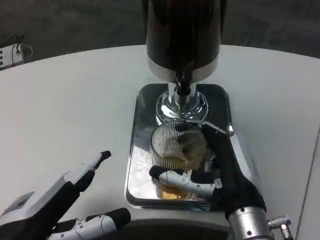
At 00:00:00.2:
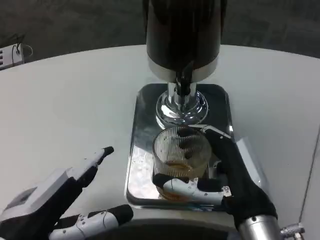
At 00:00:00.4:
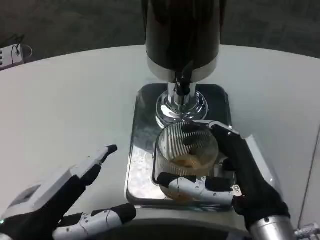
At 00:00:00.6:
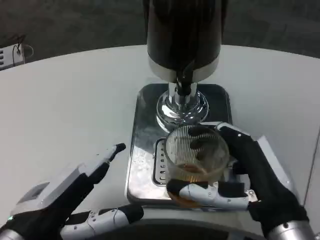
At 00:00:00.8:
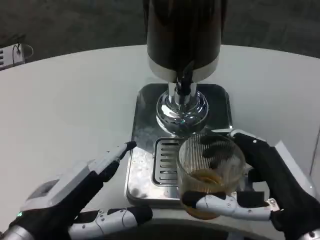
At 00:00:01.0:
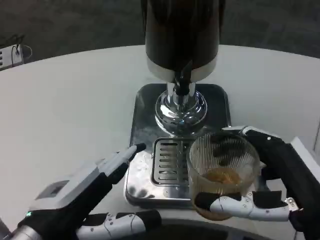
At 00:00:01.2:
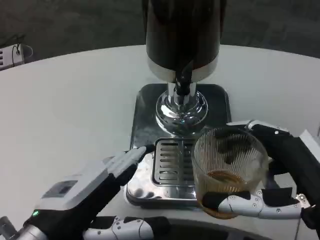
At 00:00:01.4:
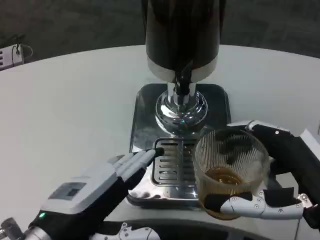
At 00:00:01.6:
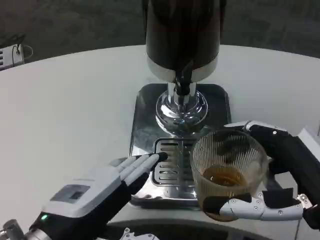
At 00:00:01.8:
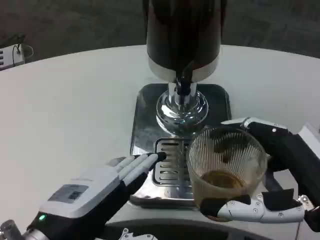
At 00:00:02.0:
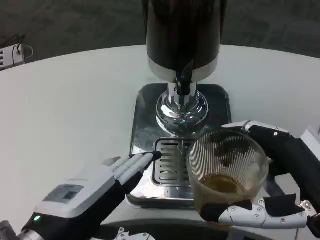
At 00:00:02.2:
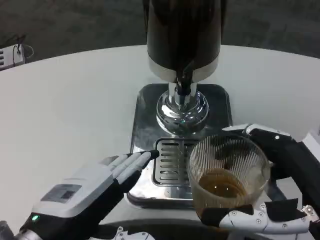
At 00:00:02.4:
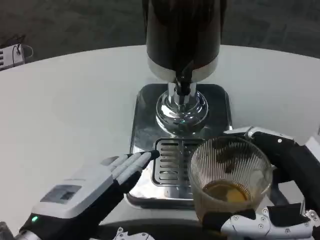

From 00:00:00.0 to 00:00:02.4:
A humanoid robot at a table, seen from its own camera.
Task of the whole recording: Grasp the cup under the faucet to collect the drink, then remove the cup.
From 00:00:00.0 to 00:00:01.2: The right hand is displaced to the right, backward and upward by approximately 15 cm.
From 00:00:01.2 to 00:00:02.4: There are only small adjustments of the hands.

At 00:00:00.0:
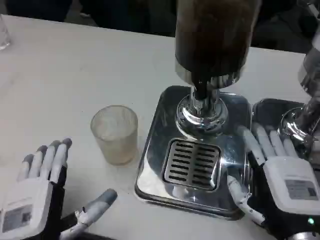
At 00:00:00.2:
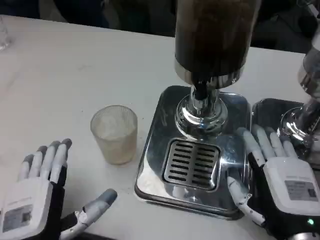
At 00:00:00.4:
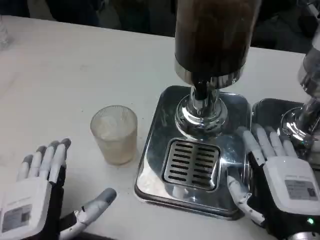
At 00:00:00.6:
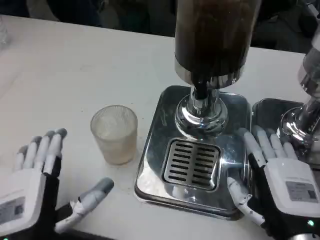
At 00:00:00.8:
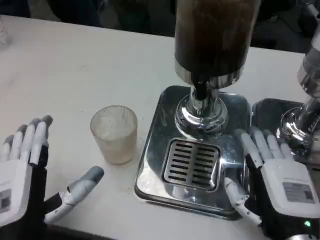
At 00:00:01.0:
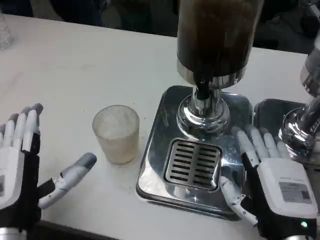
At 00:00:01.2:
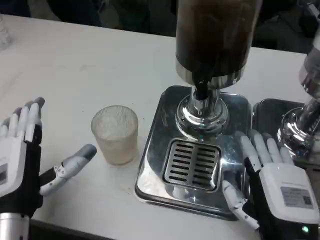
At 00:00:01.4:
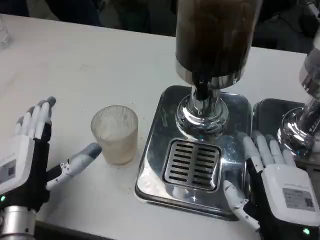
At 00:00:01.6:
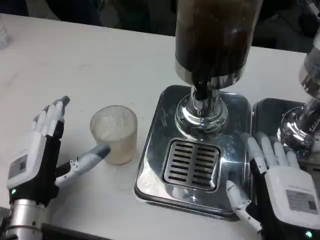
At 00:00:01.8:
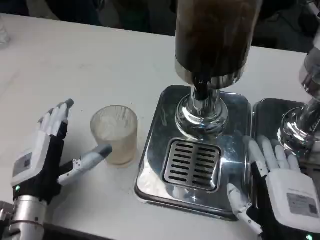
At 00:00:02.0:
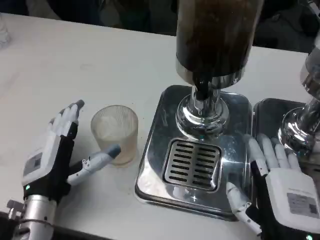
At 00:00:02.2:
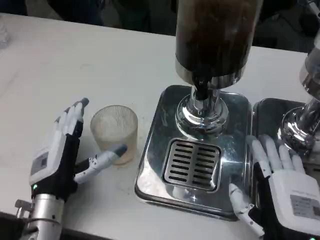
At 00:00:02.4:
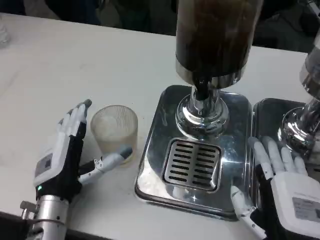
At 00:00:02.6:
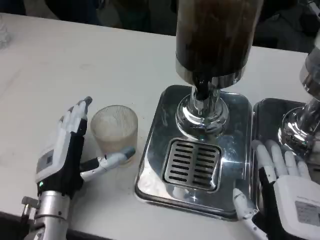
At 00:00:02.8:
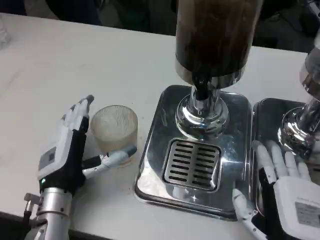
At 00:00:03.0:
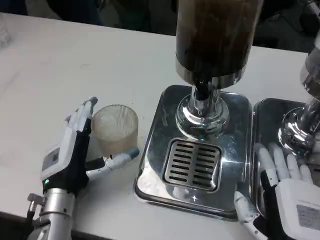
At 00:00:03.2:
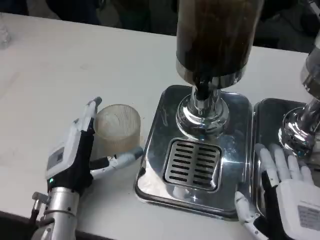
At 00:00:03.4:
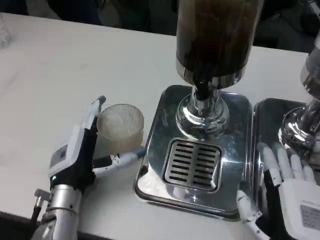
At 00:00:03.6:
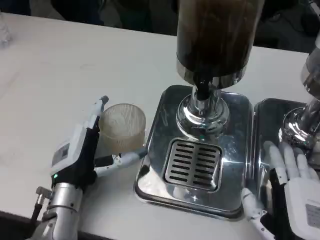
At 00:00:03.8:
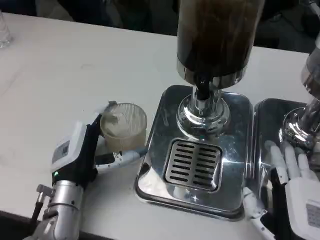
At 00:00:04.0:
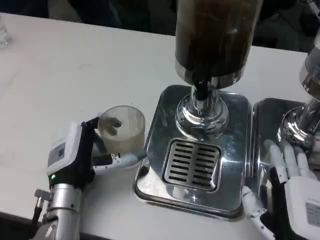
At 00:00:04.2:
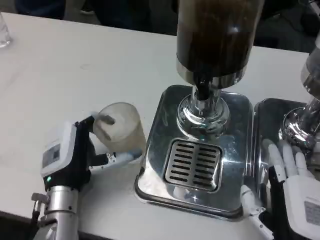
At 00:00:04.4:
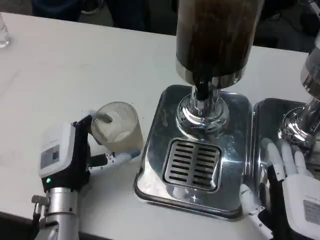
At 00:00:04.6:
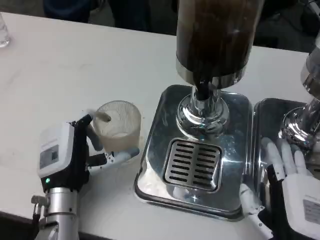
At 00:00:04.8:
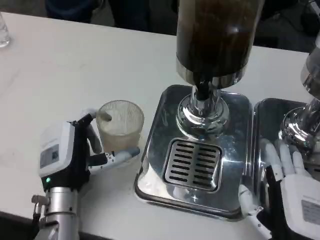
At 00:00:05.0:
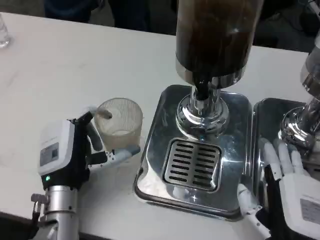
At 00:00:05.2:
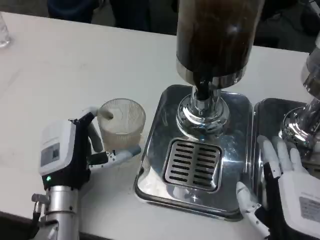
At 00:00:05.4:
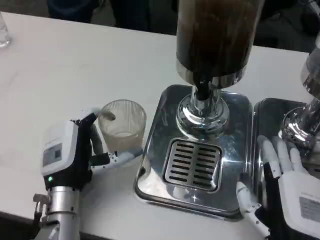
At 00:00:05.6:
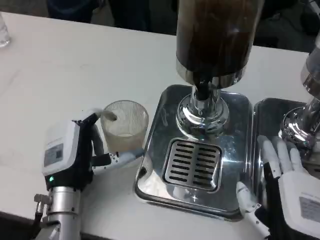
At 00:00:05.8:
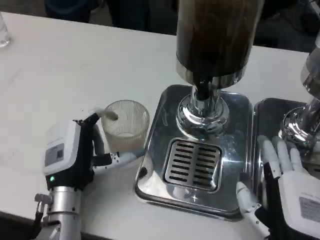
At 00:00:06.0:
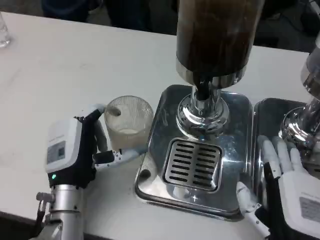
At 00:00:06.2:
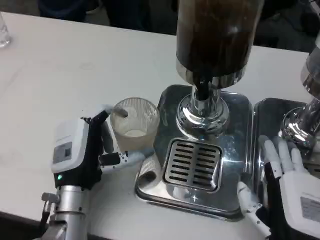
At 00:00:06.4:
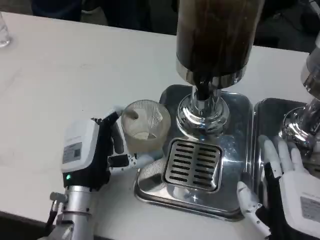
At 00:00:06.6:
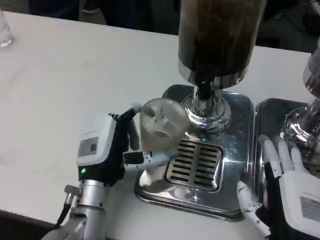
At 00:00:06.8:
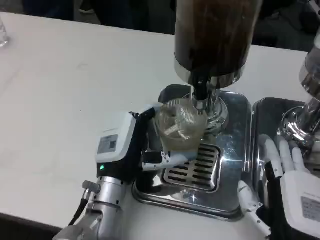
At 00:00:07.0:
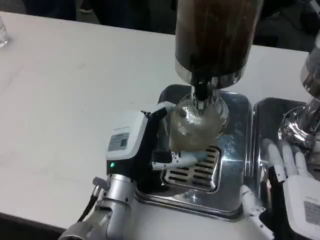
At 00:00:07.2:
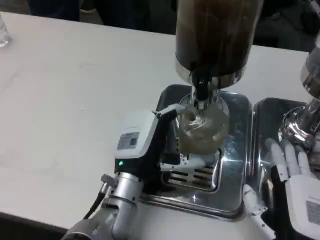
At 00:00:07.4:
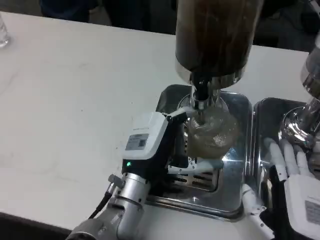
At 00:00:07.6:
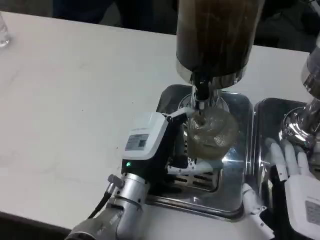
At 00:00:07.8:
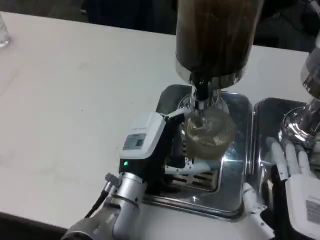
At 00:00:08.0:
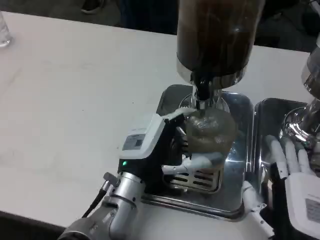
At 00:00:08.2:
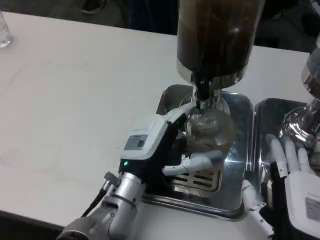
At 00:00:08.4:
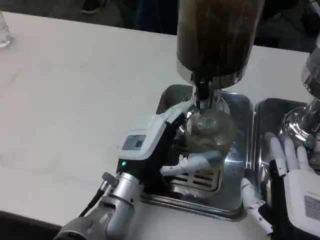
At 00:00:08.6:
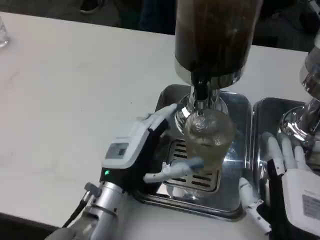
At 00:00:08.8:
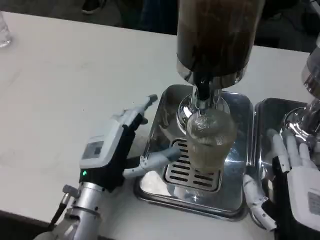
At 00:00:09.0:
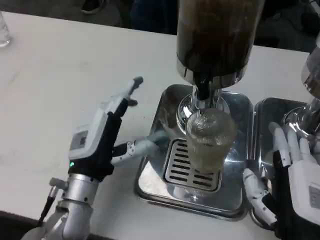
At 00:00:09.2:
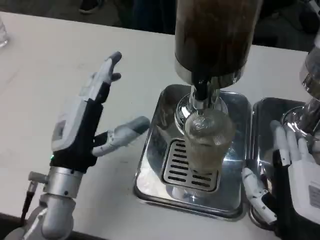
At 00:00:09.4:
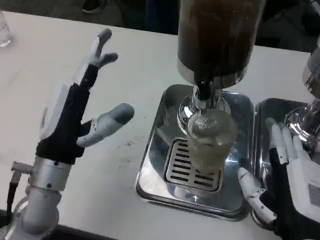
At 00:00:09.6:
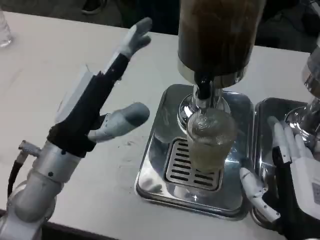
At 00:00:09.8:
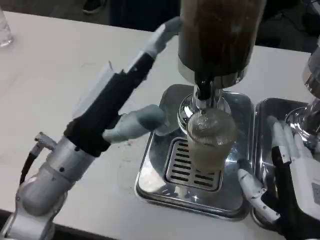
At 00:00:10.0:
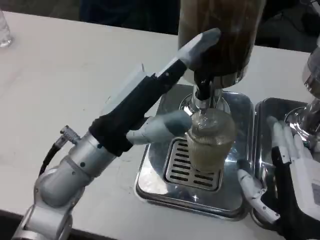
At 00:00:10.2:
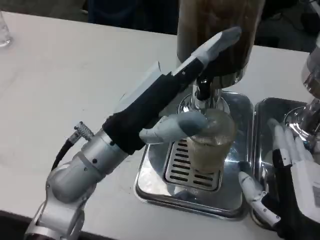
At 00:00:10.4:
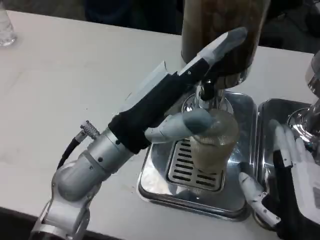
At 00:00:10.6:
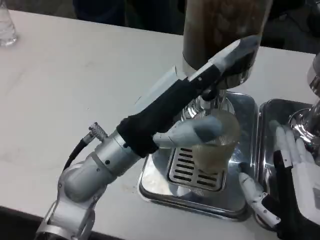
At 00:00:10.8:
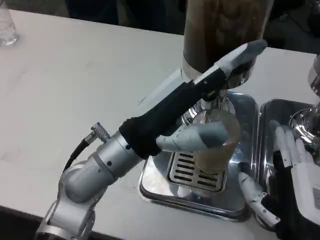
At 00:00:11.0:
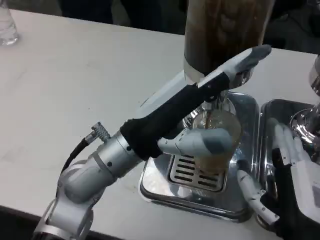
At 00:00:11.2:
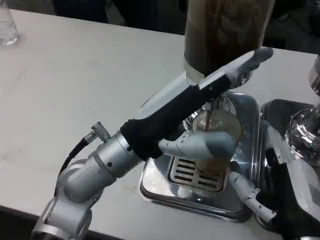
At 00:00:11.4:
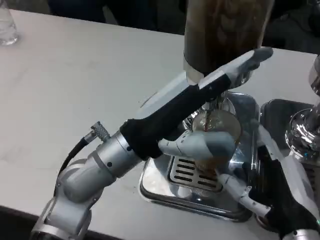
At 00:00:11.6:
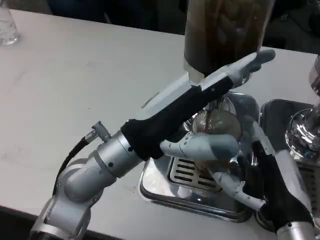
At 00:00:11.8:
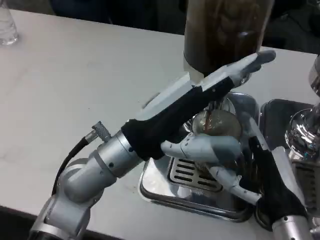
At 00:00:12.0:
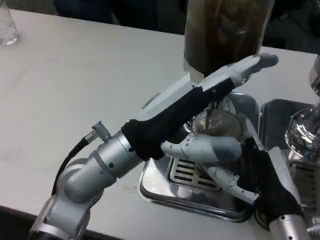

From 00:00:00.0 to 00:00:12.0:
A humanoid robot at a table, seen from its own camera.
Task of the whole recording: Grasp the cup under the faucet to collect the drink, then remove the cup.
From 00:00:00.0 to 00:00:01.6: The left hand goes some 10 cm forward.
From 00:00:03.0 to 00:00:06.0: The hands make only small movements.
From 00:00:06.0 to 00:00:07.6: The left hand heads to the right, covering some 10 cm.
From 00:00:07.6 to 00:00:09.0: The left hand heads to the left, covering some 5 cm.
From 00:00:09.0 to 00:00:10.4: The left hand heads upward, covering about 10 cm.

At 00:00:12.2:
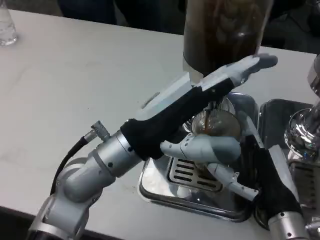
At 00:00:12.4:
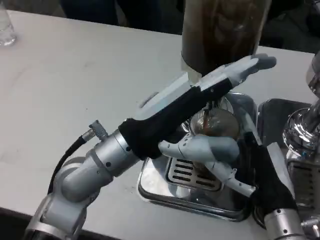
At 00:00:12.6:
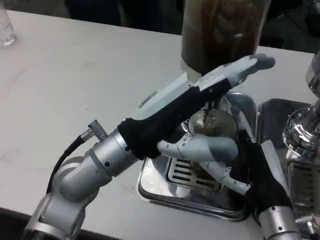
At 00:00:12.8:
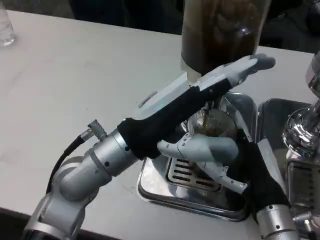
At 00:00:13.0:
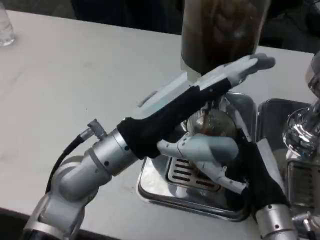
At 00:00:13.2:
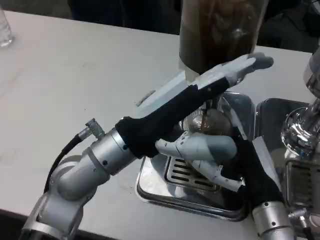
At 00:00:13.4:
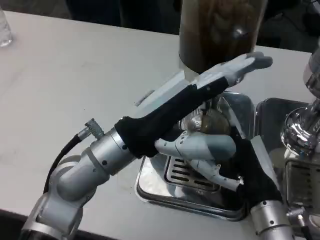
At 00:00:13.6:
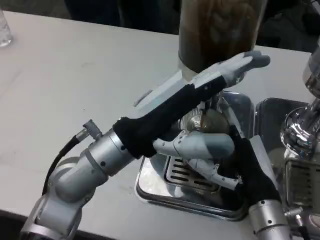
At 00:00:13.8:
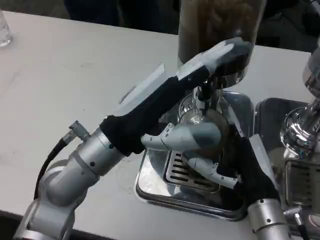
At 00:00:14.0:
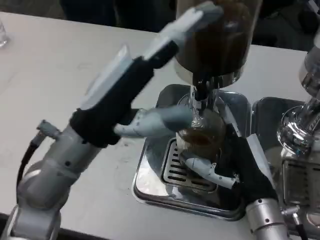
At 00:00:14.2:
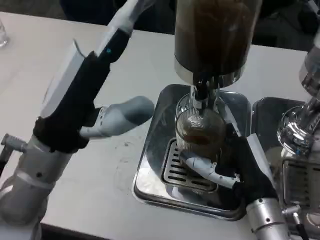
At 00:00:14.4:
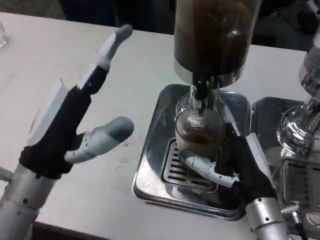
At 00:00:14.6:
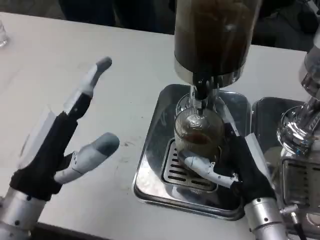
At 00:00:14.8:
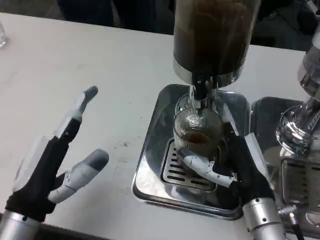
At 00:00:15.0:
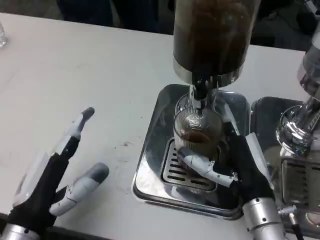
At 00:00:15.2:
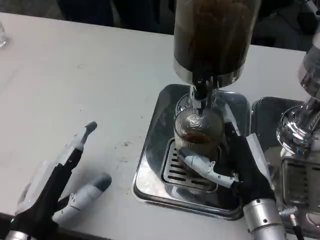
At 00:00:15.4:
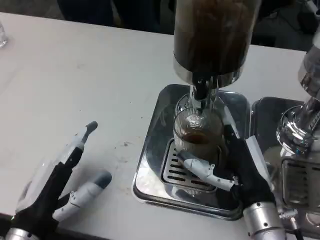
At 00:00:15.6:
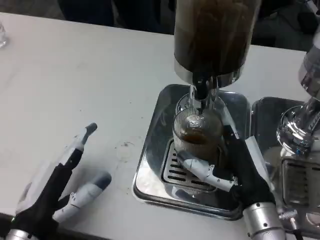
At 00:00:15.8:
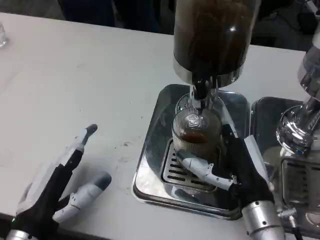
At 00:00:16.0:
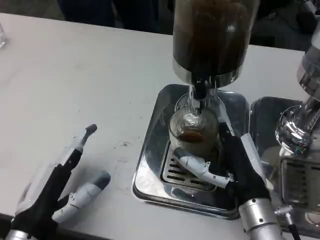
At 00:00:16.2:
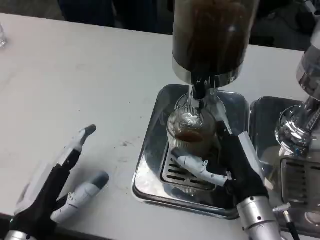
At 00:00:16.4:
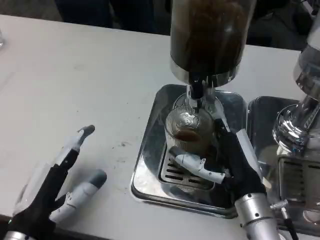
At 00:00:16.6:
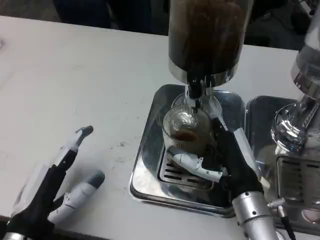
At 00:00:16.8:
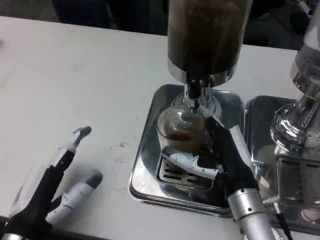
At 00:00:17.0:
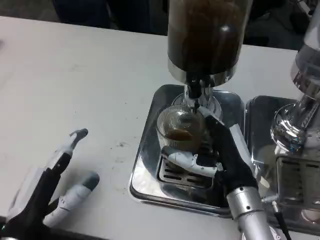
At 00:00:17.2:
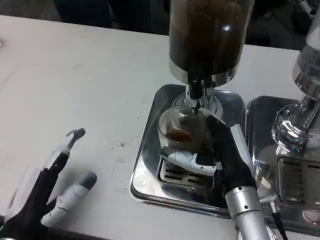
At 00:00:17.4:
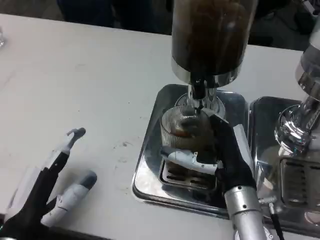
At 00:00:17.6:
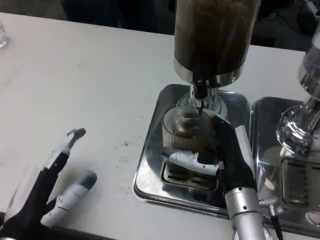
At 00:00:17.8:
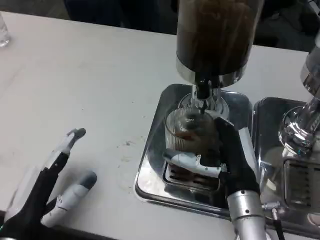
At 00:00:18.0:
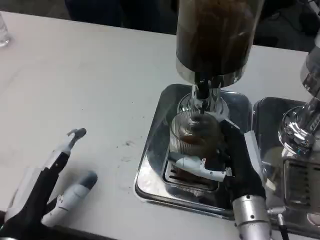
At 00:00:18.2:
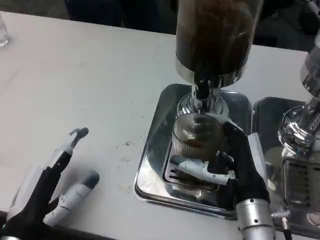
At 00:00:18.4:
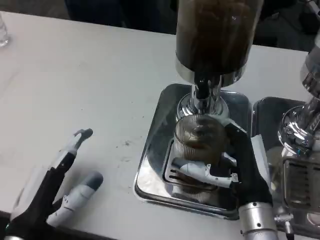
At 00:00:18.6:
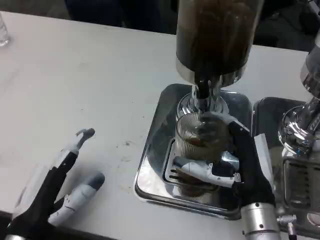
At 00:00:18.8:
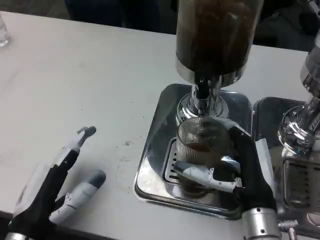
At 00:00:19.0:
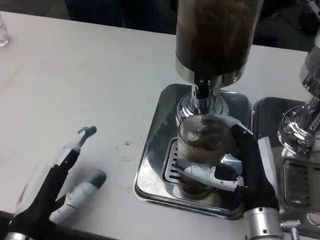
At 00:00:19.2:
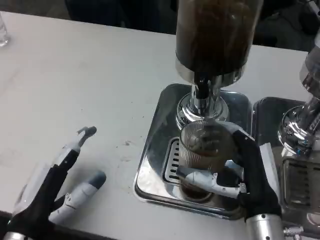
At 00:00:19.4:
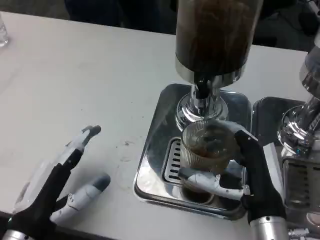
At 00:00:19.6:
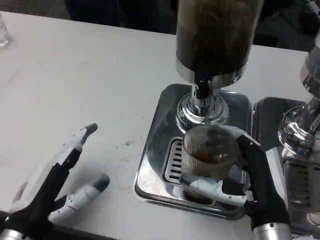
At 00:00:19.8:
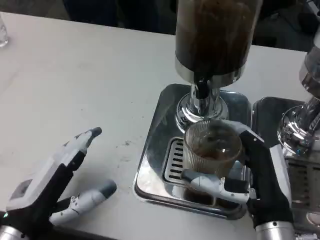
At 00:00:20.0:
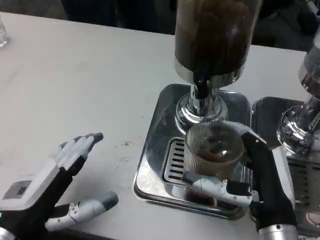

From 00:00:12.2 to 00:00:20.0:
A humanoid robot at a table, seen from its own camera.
Task of the whole recording: Grasp the cup under the faucet to collect the drink, then remove the cup.
From 00:00:13.8 to 00:00:15.4: The left hand goes some 20 cm downward, to the left and backward.
From 00:00:18.4 to 00:00:20.0: The right hand shifts by some 5 cm; the left hand heads upward, covering approximately 5 cm.
